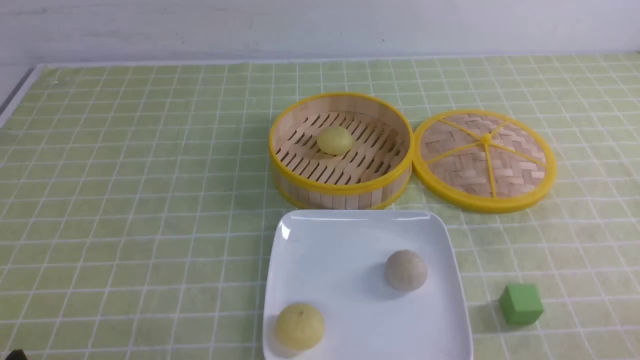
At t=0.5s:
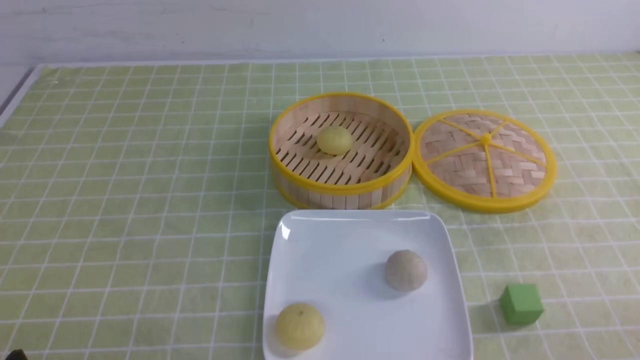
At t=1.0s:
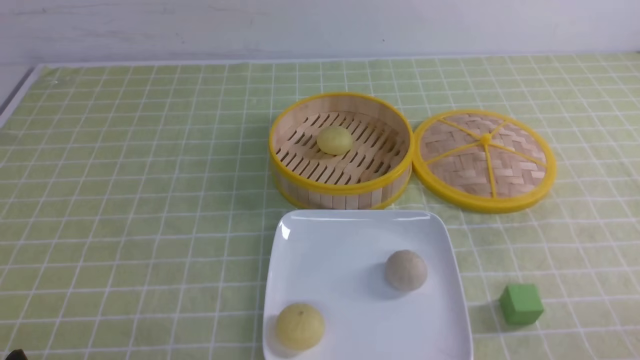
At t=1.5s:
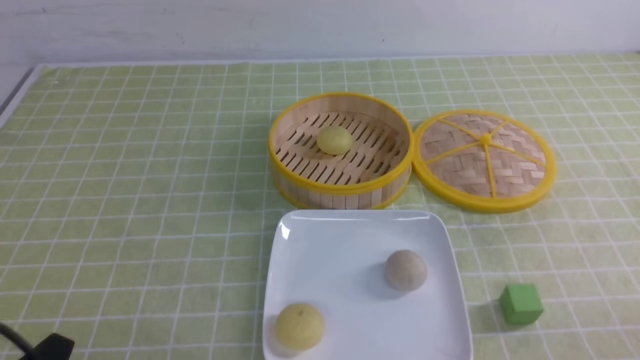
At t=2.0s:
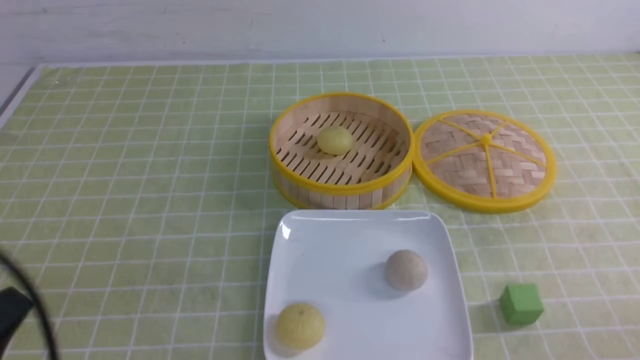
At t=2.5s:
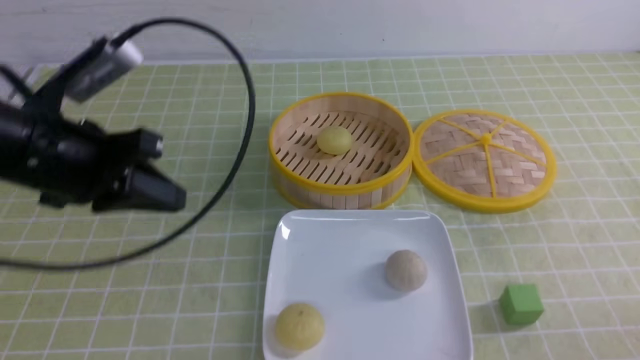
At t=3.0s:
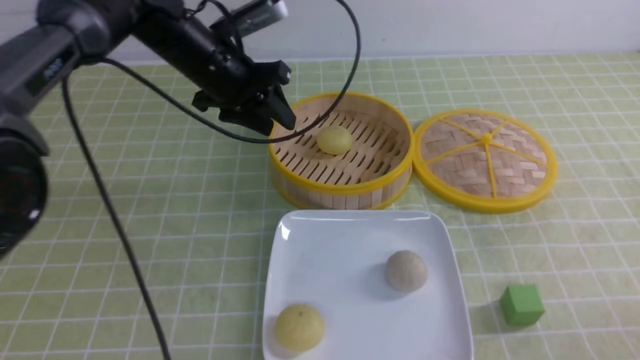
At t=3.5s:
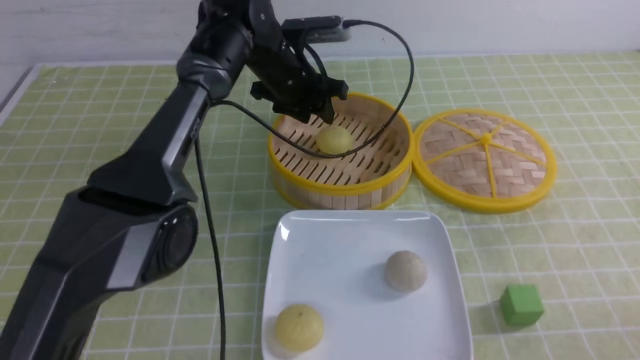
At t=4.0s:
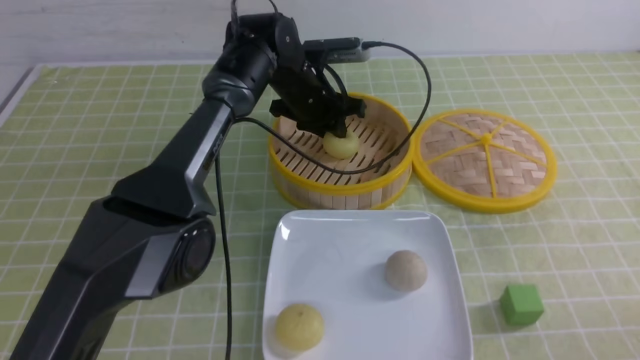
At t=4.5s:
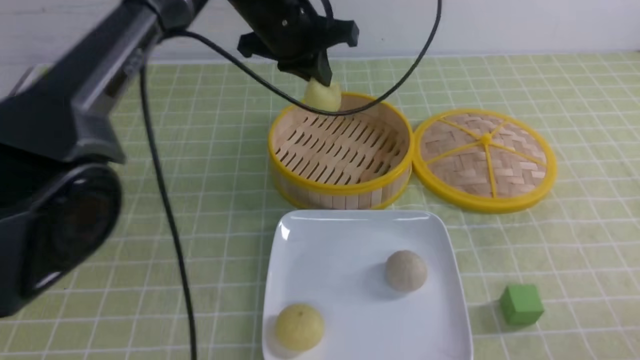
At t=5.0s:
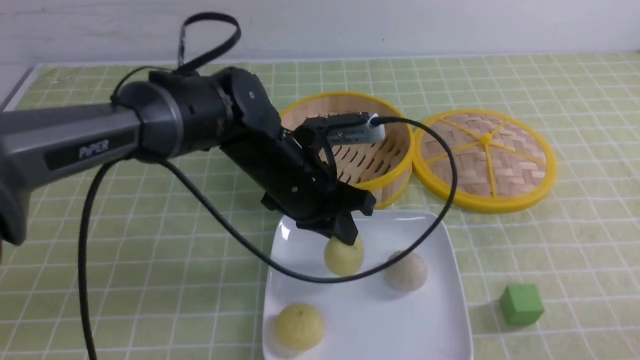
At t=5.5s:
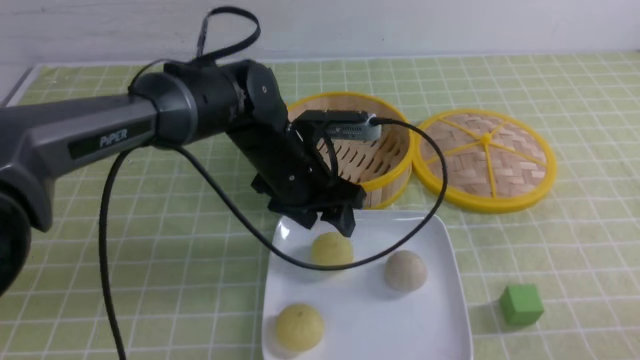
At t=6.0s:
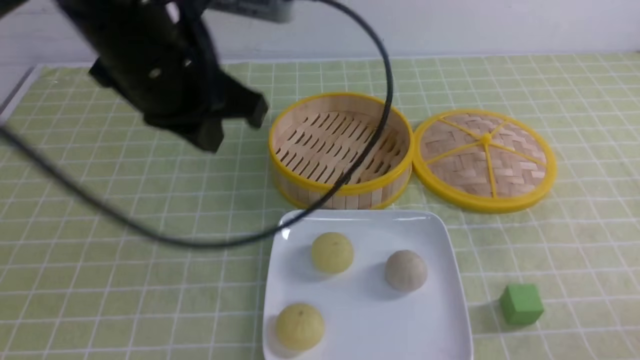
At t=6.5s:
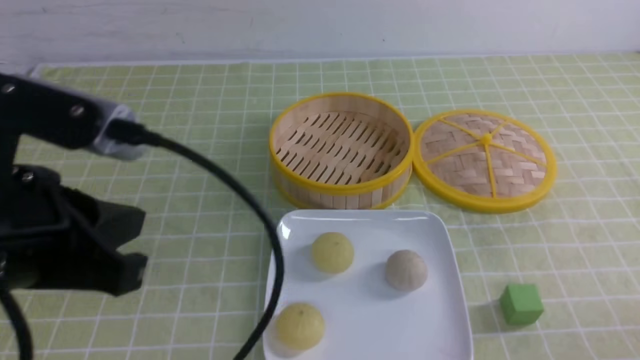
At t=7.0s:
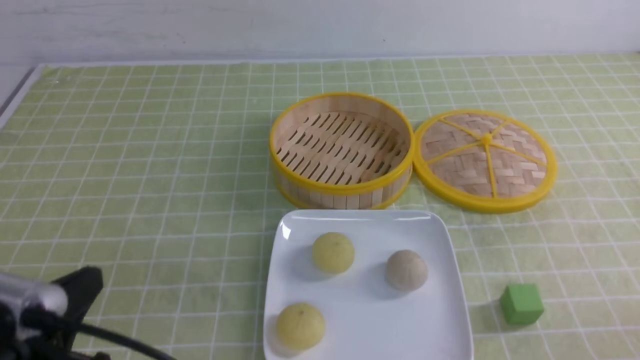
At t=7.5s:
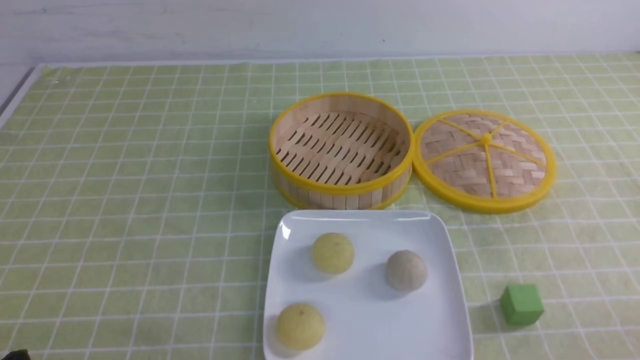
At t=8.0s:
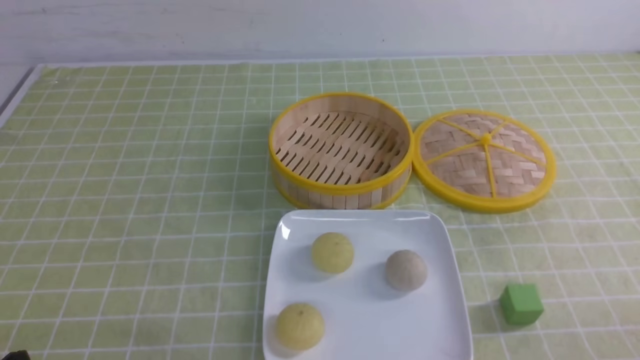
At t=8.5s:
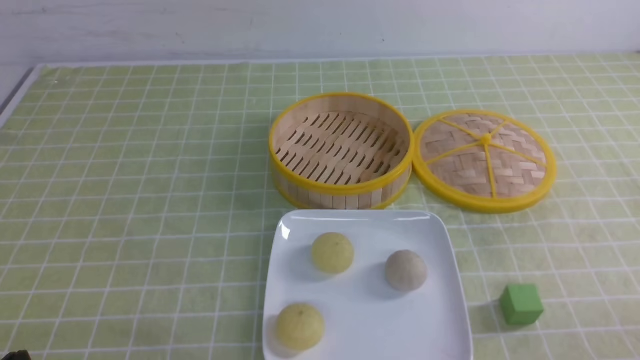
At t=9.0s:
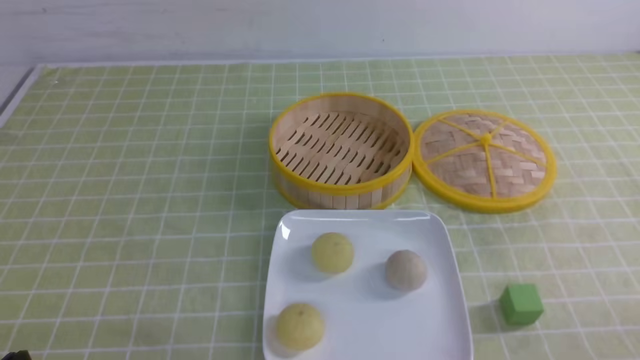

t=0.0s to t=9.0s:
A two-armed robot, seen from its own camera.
Step, t=0.0s to t=4.0s: use the left arm to grab the steamed stuffed bun that is closest to it.
Step, t=4.5s to t=5.5s: use the left arm to put the steamed stuffed bun into the plate.
t=2.0s to t=4.5s: The left gripper goes roughly 50 cm forward and to the right, and opens, then closes again.
t=4.5s to t=7.0s: The left gripper goes approximately 40 cm backward and to the left, and opens, then closes again.
t=7.0s to t=9.0s: The left gripper goes approximately 10 cm downward.

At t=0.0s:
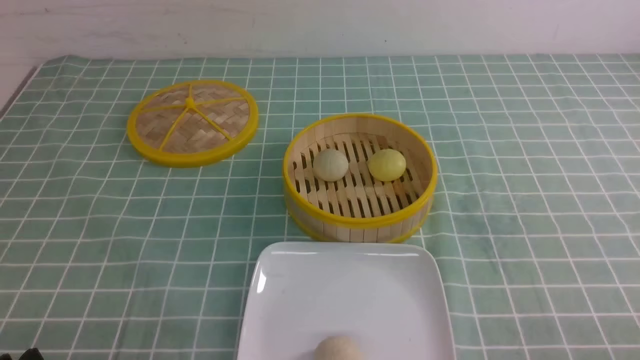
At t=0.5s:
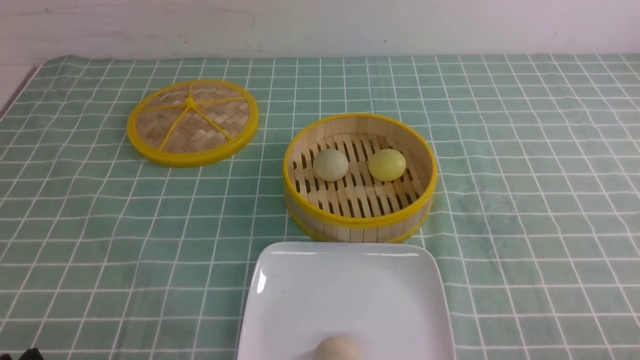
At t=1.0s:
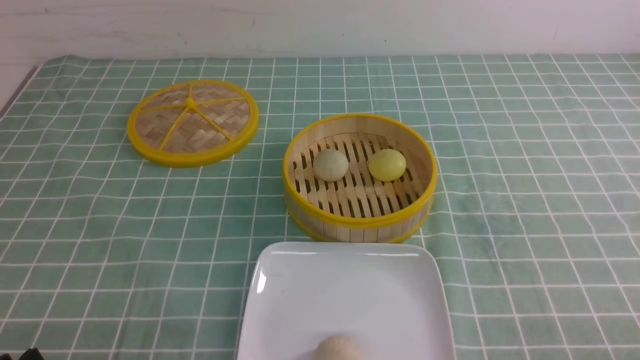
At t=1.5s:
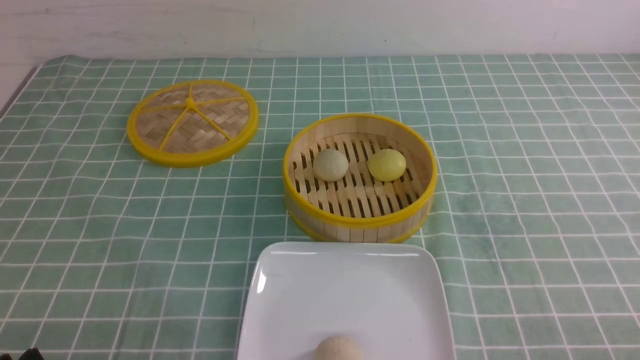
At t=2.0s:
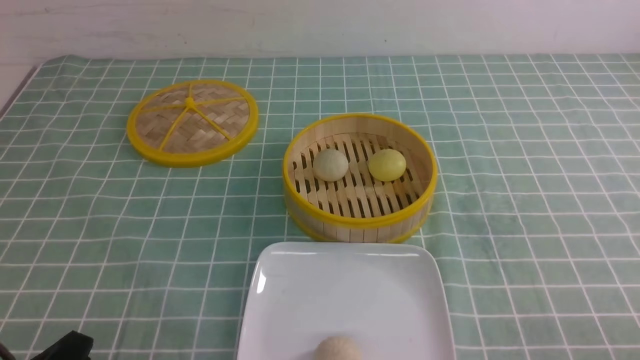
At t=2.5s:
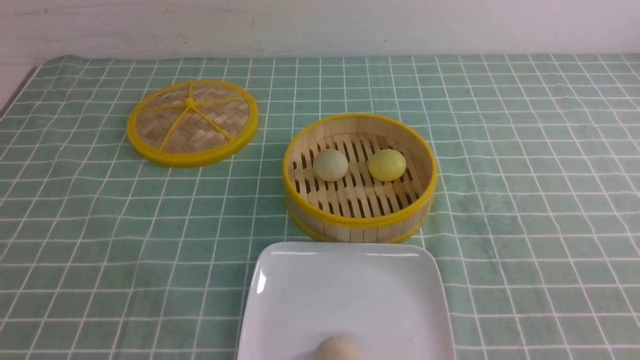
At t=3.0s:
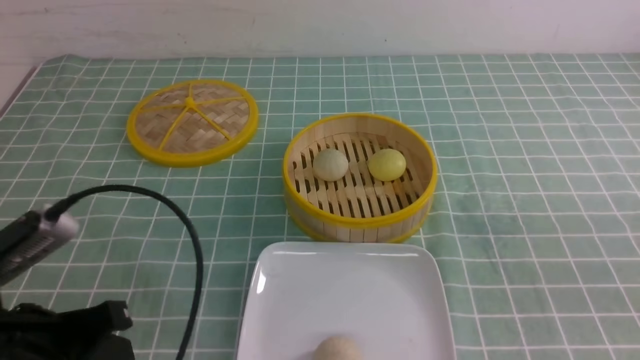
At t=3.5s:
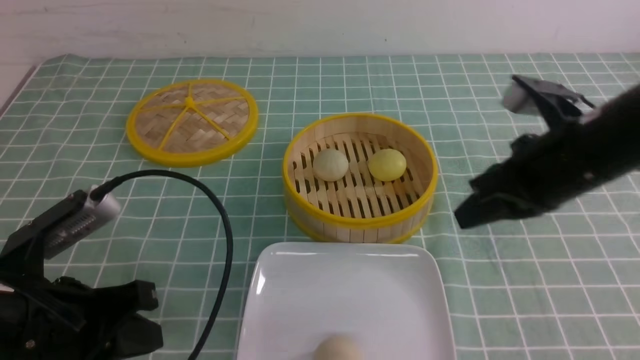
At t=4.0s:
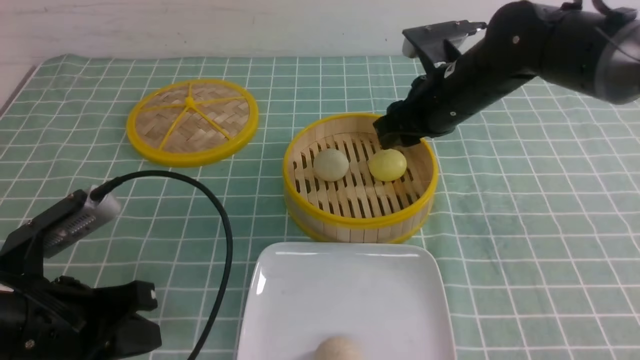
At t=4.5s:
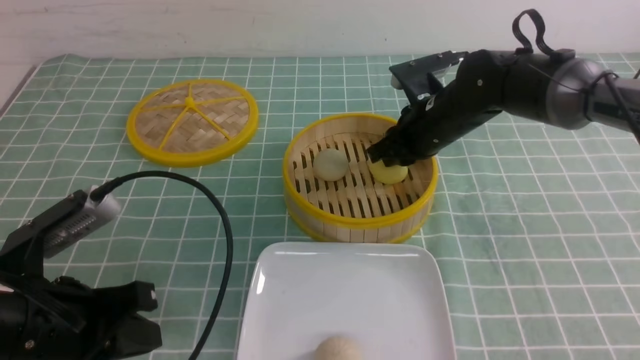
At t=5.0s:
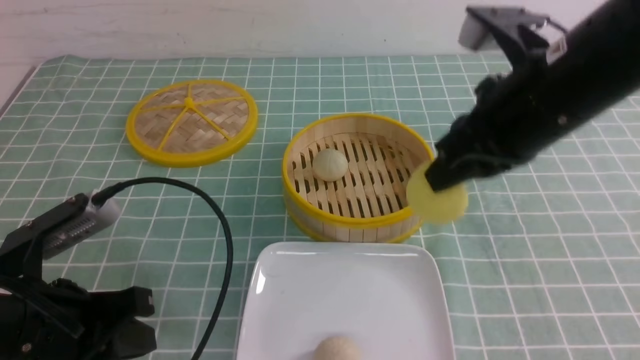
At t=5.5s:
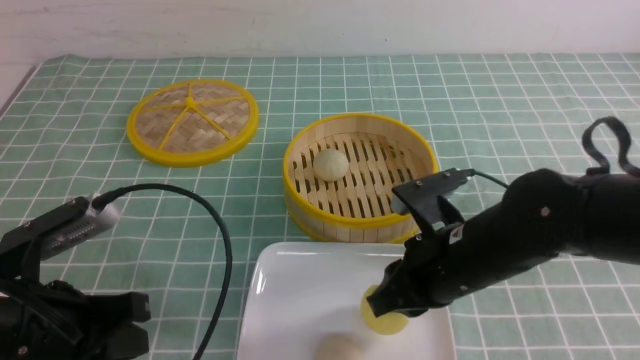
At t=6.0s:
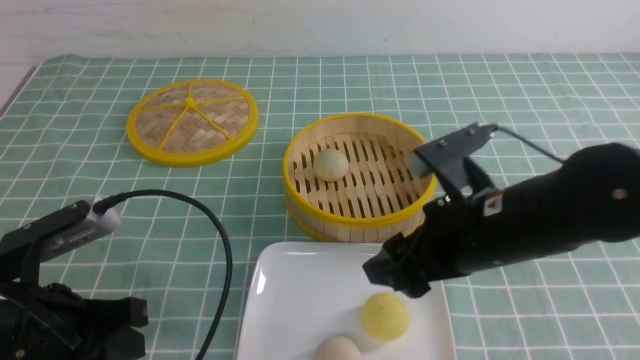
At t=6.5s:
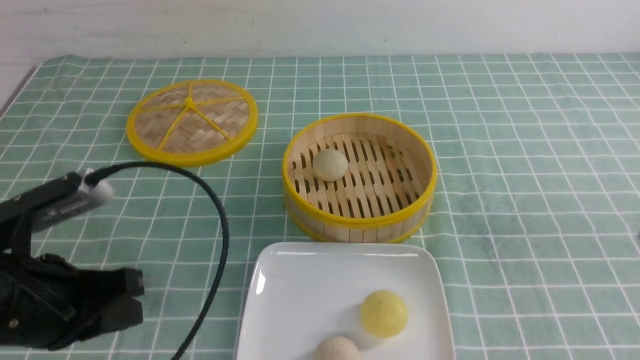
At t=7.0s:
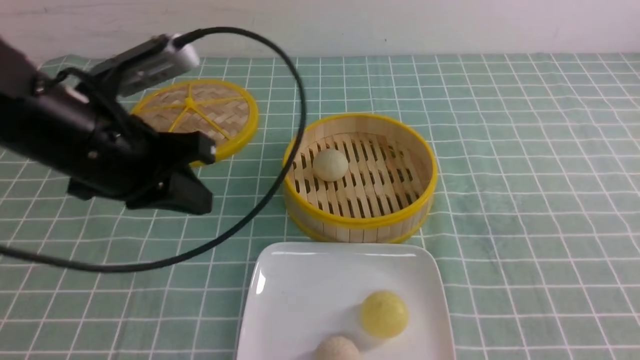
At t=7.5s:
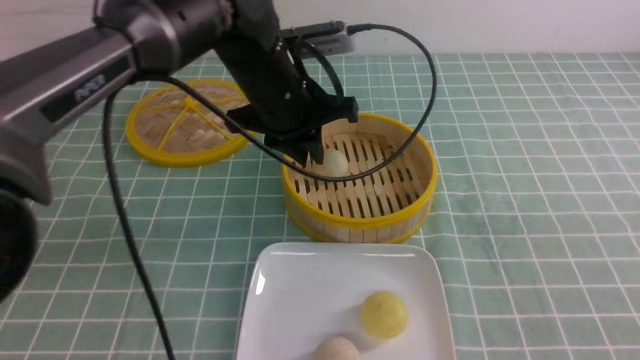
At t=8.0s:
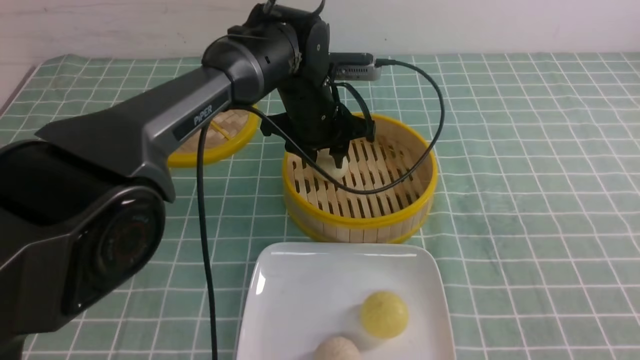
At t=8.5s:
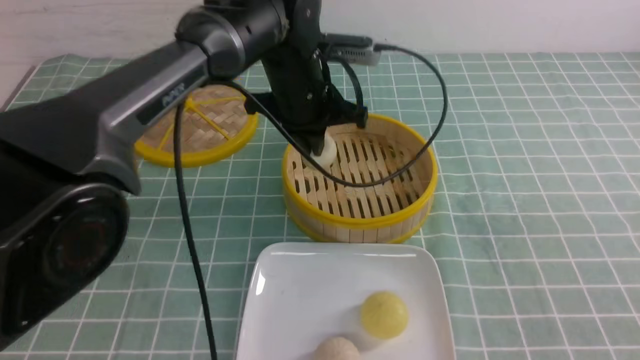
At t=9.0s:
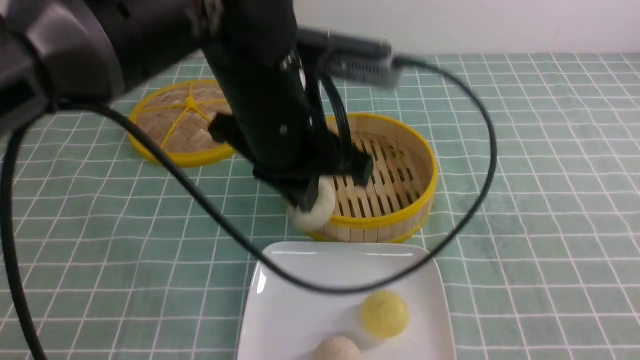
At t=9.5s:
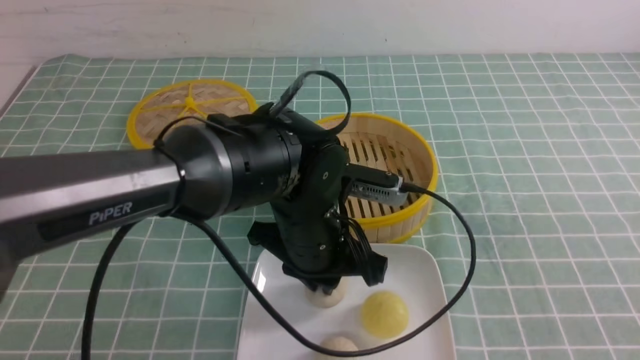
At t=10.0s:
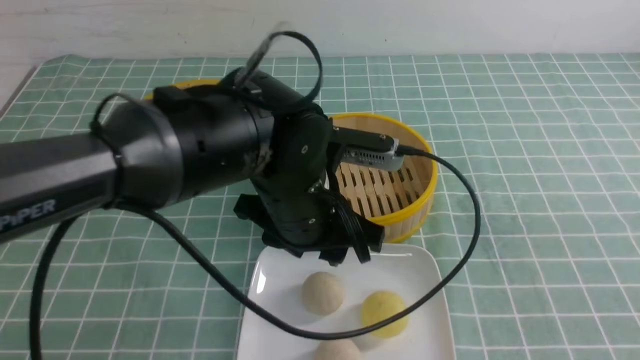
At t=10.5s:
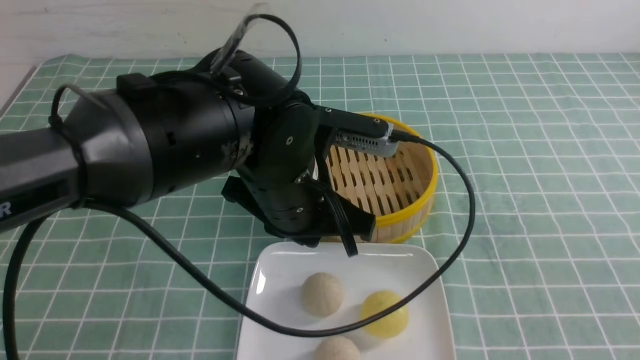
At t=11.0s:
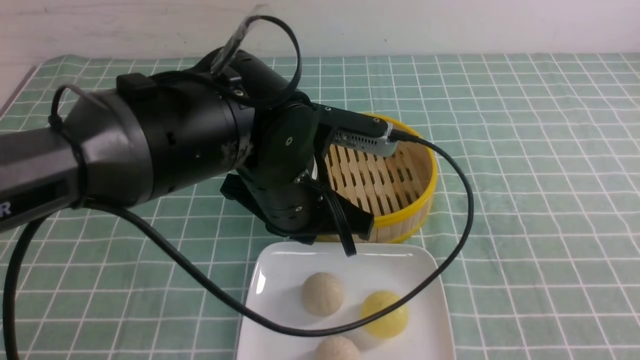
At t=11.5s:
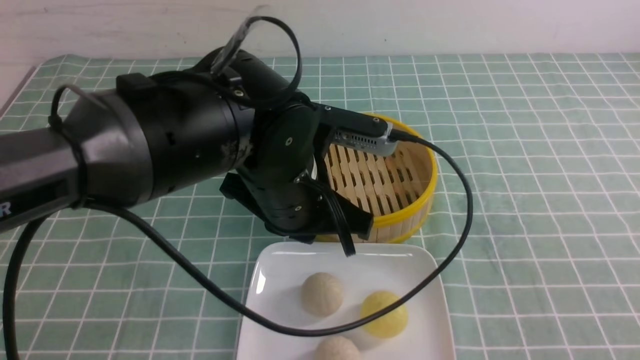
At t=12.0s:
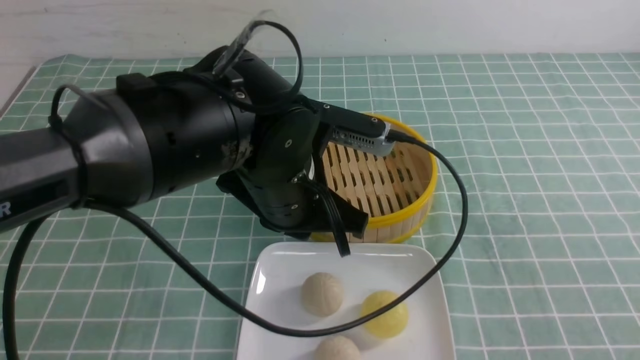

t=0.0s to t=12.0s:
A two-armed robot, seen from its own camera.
Step, t=0.0s to t=4.5s: use the right arm to grab the steamed stuffed bun that is closest to it.
Step, t=5.0s to t=5.5s: use the right arm to put the steamed stuffed bun into the plate.
Step, t=6.0s to t=8.0s: use the left arm to grab the steamed stuffed bun that is closest to it.
Step, t=8.5s to t=9.5s: use the left arm to put the steamed stuffed bun into the plate.
t=2.0s to t=4.0s: The right gripper is displaced forward and to the left by roughly 40 cm, and closes, then opens again; the left gripper shifts roughly 10 cm forward and upward, and closes its fingers.
t=4.0s to t=6.0s: The right gripper heads backward, covering some 20 cm, and closes, then opens again.
t=6.0s to t=8.0s: The left gripper travels forward and to the right by roughly 35 cm, and opens. Meanwhile the right gripper goes some 20 cm to the right and backward, and closes.
t=8.0s to t=10.0s: The left gripper travels backward by some 15 cm, and closes, then reopens; the right gripper moves about 5 cm.
t=10.0s to t=12.0s: The left gripper closes.
